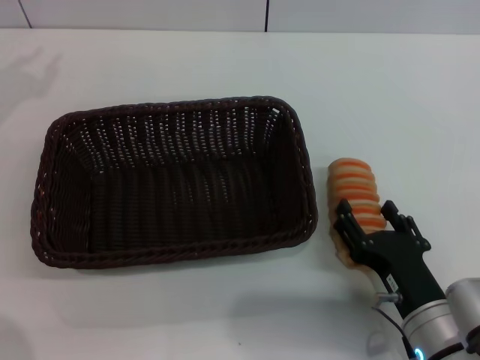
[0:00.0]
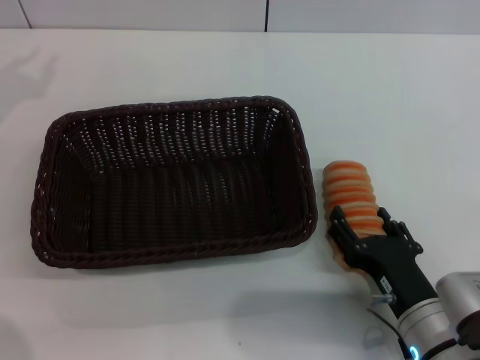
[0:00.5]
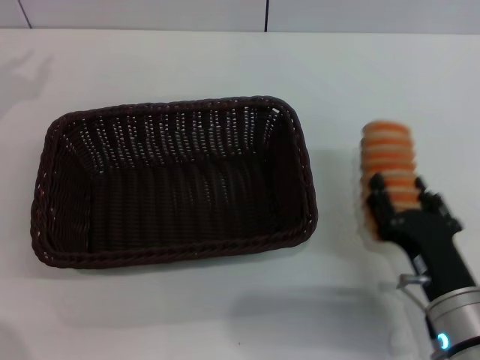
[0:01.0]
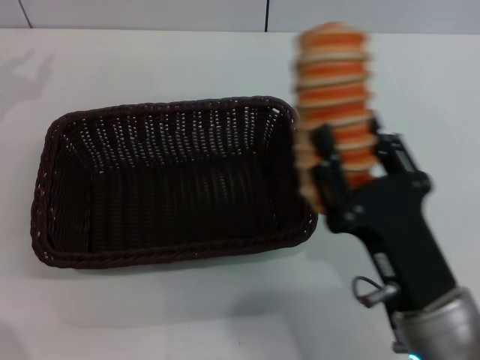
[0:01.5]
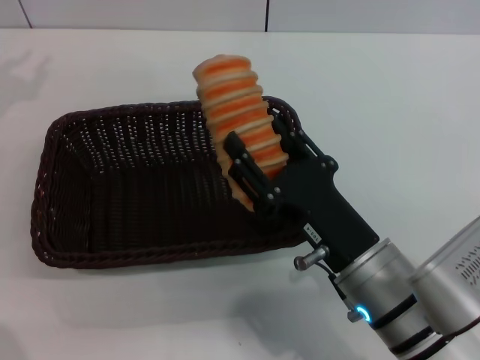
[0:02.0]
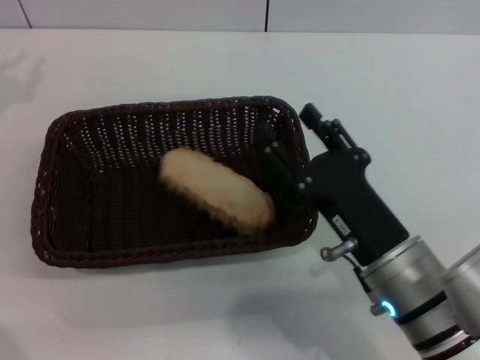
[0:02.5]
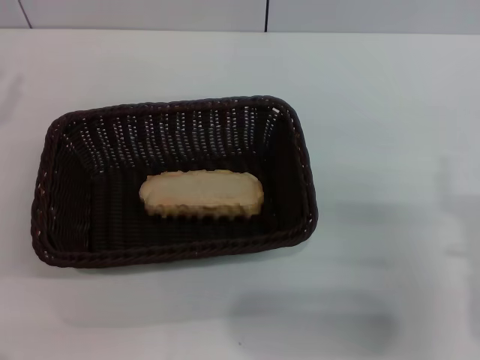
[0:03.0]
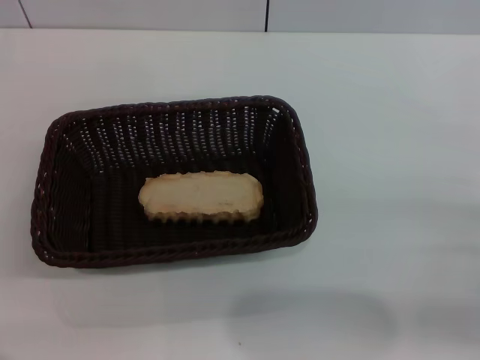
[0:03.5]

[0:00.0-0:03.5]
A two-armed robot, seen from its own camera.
Step, 0:01.5 to 0:02.5: Place the long bread into the dark basket with the right gripper.
0:00.0 to 0:02.0: The right gripper heads upward and to the left, covering roughly 10 cm, and closes its fingers.
0:02.0 to 0:03.5: The right gripper moves to the right, some 20 cm, and opens; the left gripper moves downward and backward, some 15 cm.

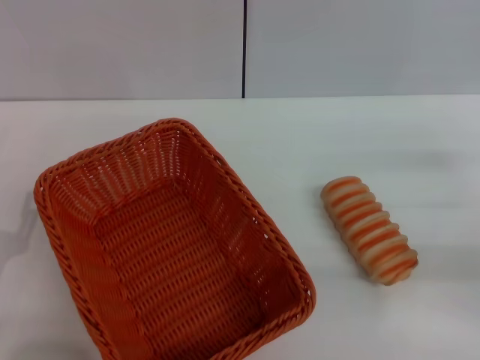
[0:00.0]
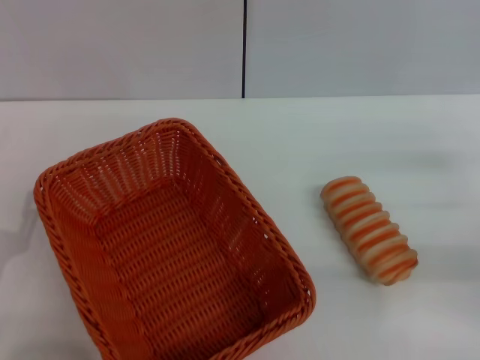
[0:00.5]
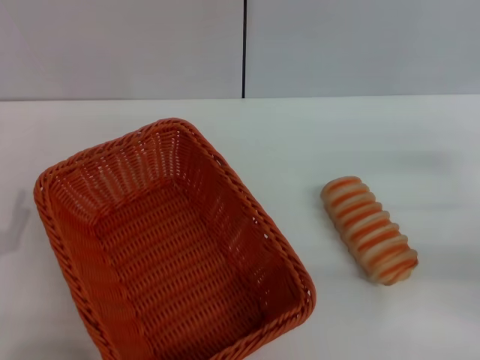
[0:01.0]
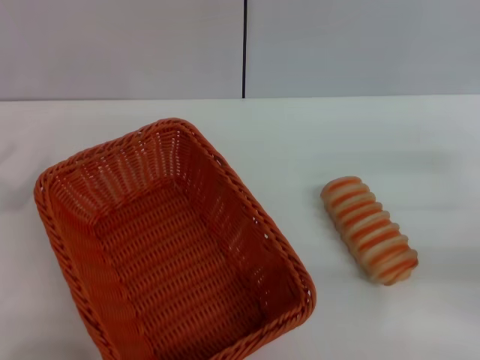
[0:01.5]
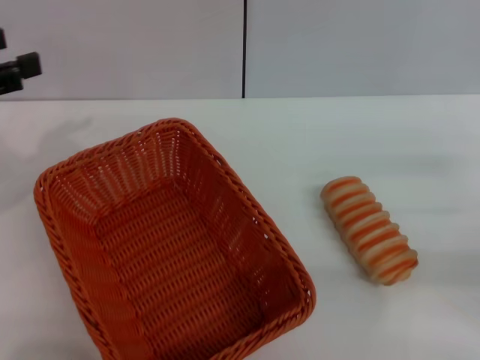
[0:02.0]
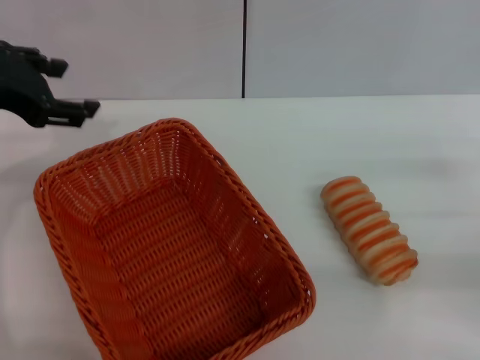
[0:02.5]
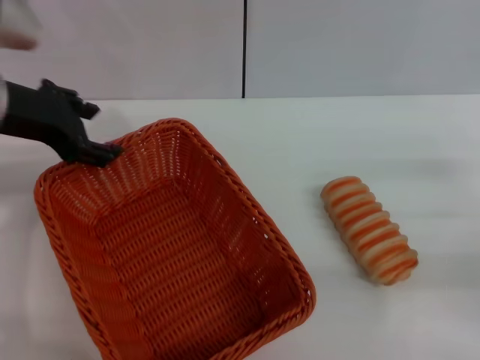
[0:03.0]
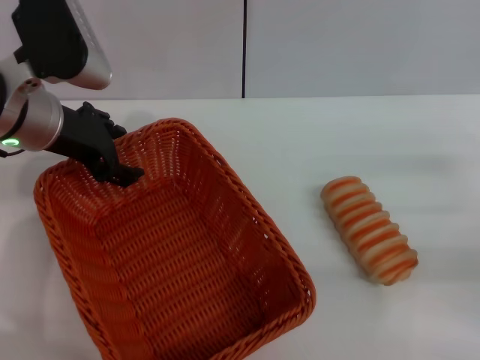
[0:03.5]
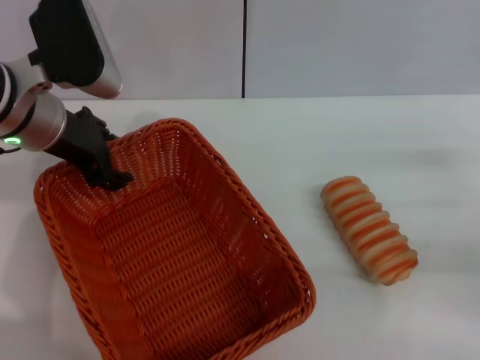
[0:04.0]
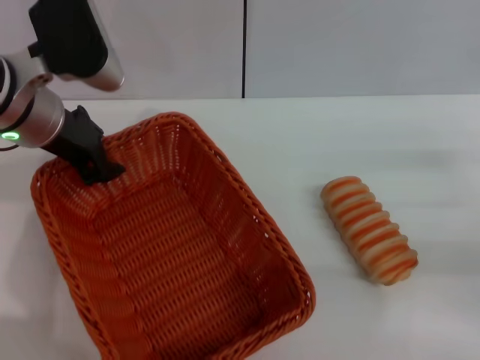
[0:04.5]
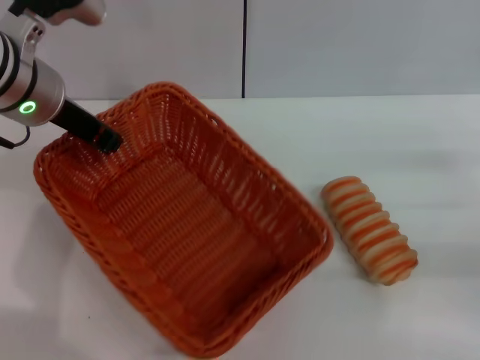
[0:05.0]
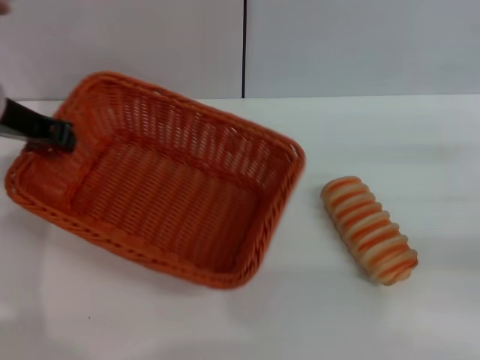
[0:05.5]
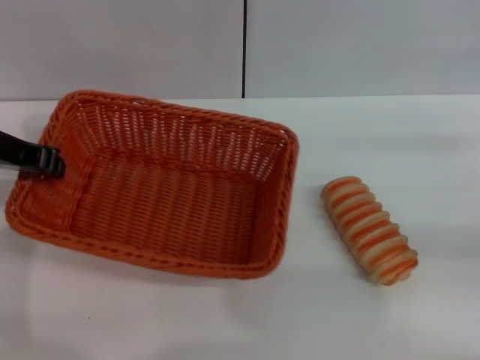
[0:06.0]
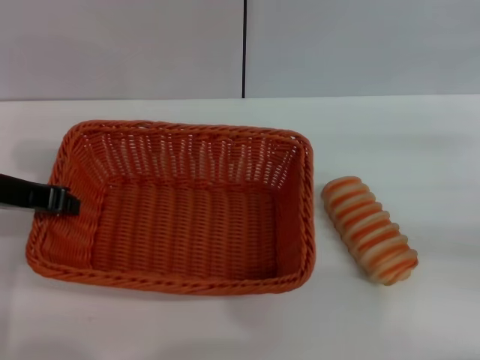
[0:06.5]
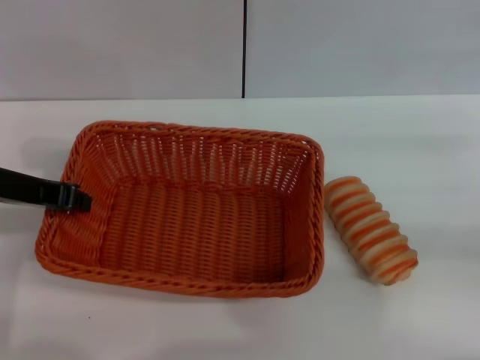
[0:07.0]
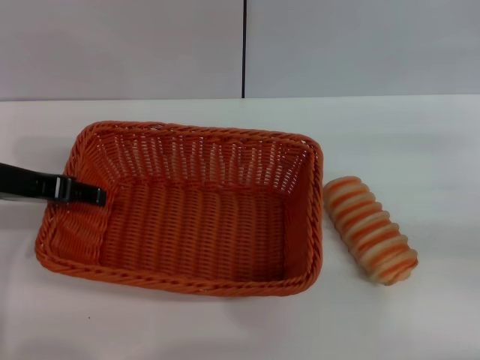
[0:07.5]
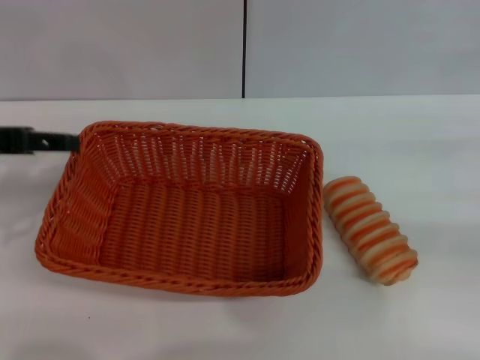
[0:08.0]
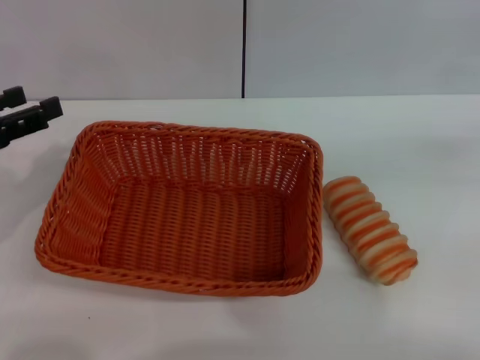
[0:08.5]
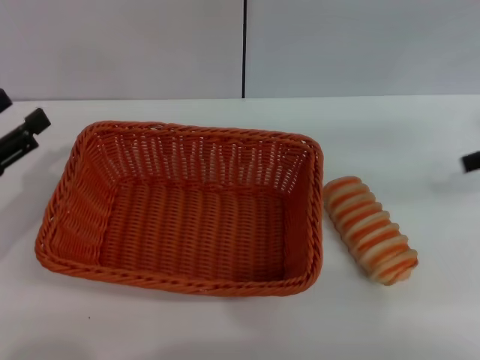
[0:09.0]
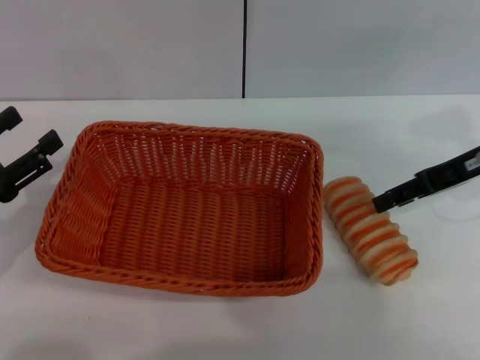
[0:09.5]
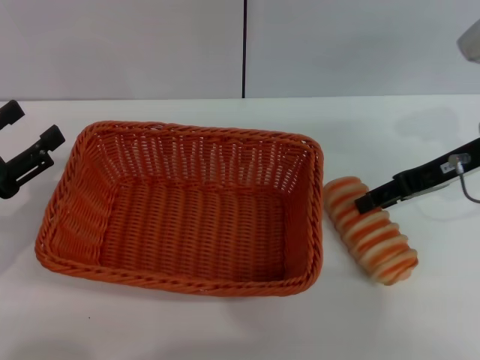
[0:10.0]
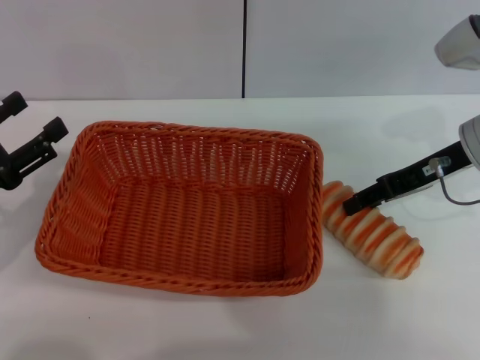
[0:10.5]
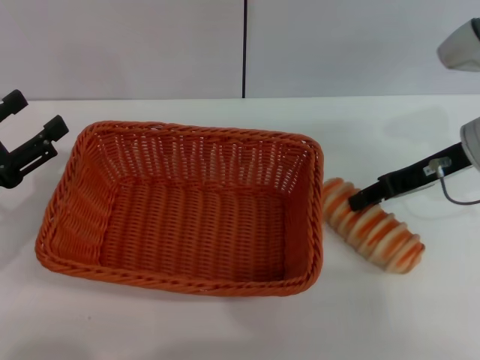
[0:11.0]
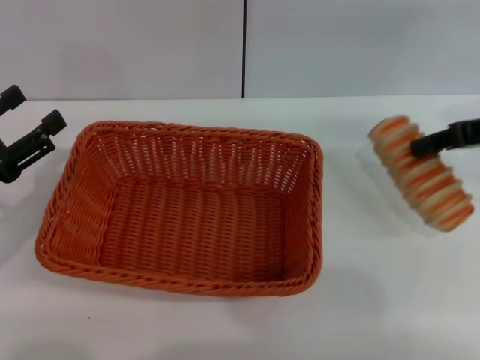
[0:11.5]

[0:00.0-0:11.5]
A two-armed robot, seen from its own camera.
Step, 0:00.0 to 0:04.5: Pick up the light basket with the left gripper.
Step, 0:05.0 to 0:08.0: Place the light basket in the center of view with the left gripper.
Step, 0:08.5 to 0:11.5: Pick up the long bread with the right gripper.
0:00.0 to 0:02.0: The left gripper heads upward and forward, covering some 20 cm.
0:02.0 to 0:04.0: The left gripper is displaced to the right and forward by roughly 15 cm.
0:04.0 to 0:06.0: The left gripper heads to the left, covering roughly 5 cm, and closes its fingers.
0:06.0 to 0:07.5: The left gripper opens its fingers.
0:07.5 to 0:09.5: The left gripper goes roughly 15 cm downward, backward and to the left, and opens, while the right gripper shifts roughly 15 cm to the left and forward.
0:09.5 to 0:11.5: The right gripper ends up approximately 5 cm from where it was, and closes.

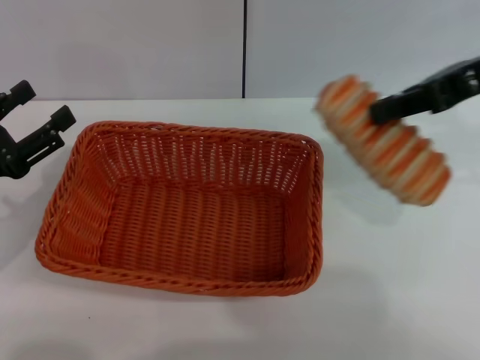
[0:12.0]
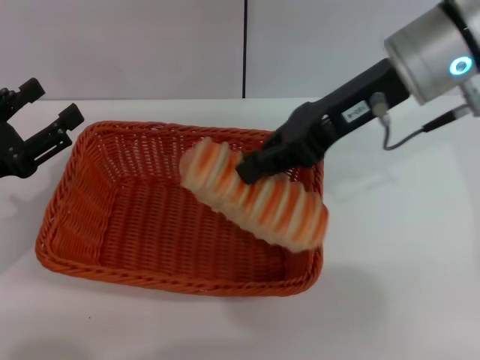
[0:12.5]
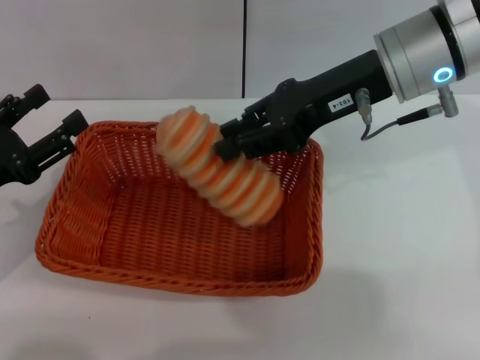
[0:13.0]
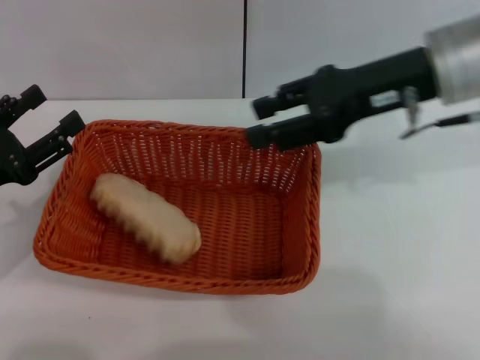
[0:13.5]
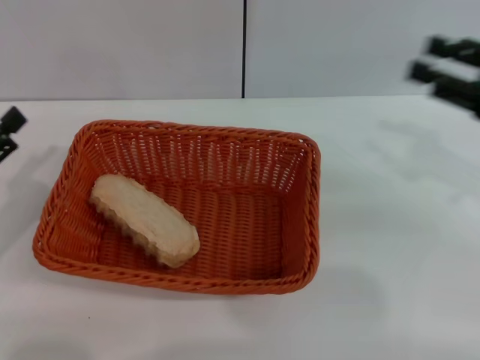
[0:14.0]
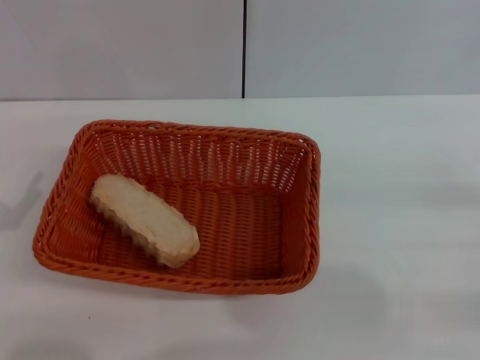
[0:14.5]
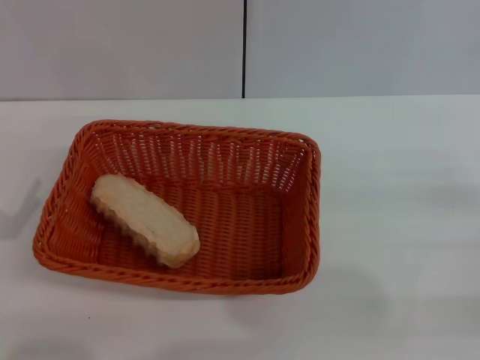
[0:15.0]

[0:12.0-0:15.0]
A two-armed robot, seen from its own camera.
Step, 0:12.0 to 0:13.0: Place the long bread into the light basket with the right gripper.
0:12.0 to 0:13.5: The right gripper travels to the left by about 5 cm, and opens its fingers.
0:13.5 to 0:15.0: The left gripper moves backward, about 5 cm, while the right gripper goes approximately 30 cm to the right, backward and downward.
